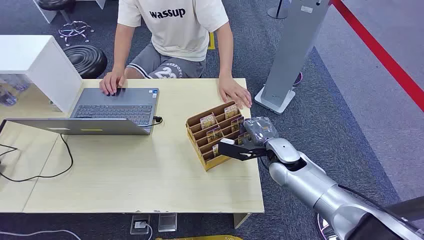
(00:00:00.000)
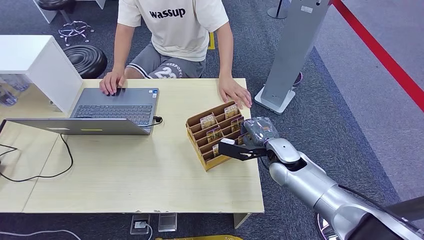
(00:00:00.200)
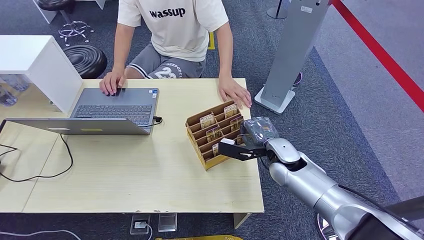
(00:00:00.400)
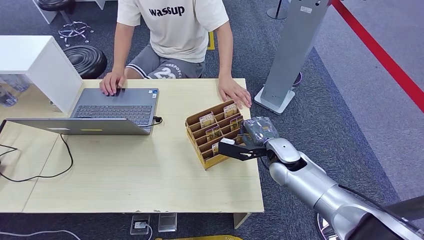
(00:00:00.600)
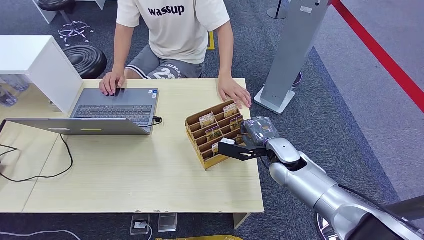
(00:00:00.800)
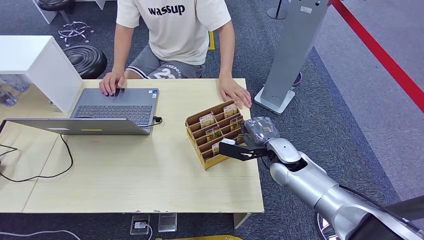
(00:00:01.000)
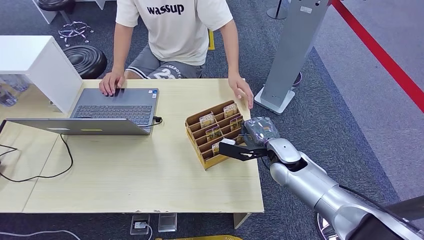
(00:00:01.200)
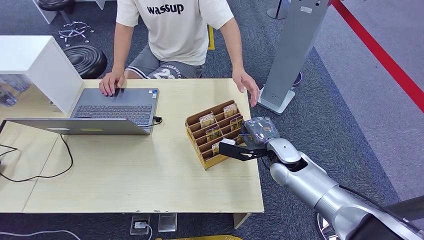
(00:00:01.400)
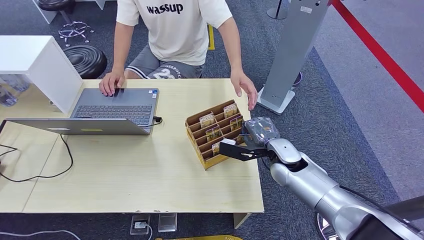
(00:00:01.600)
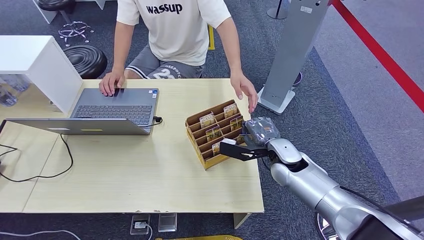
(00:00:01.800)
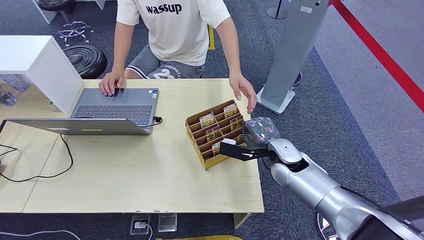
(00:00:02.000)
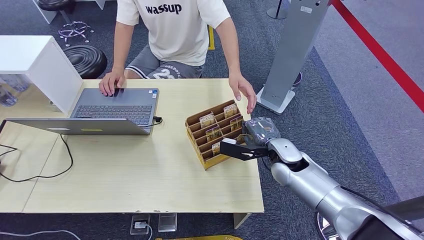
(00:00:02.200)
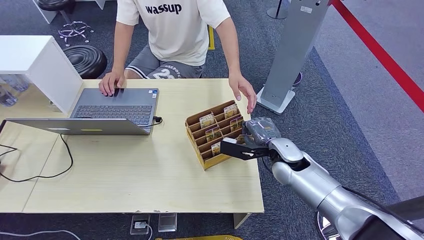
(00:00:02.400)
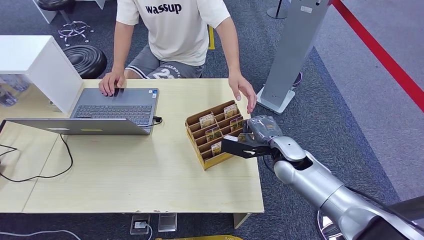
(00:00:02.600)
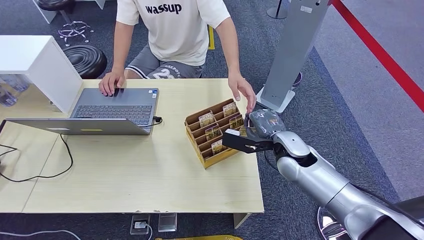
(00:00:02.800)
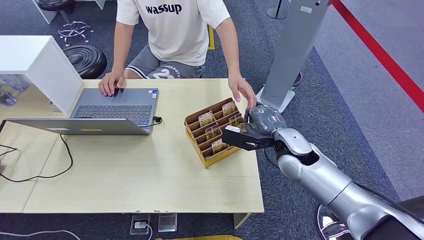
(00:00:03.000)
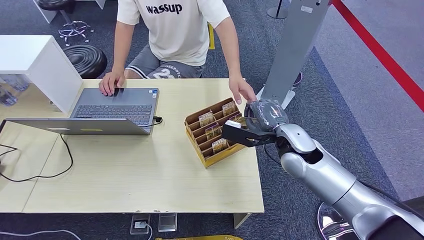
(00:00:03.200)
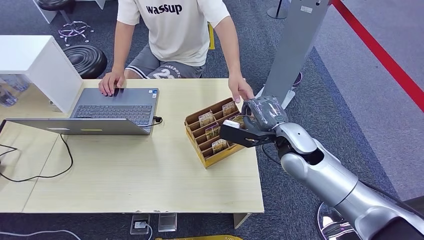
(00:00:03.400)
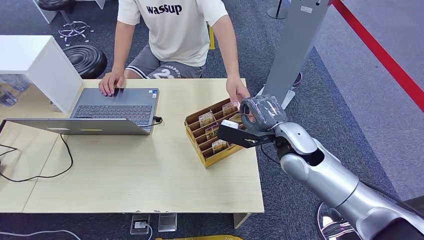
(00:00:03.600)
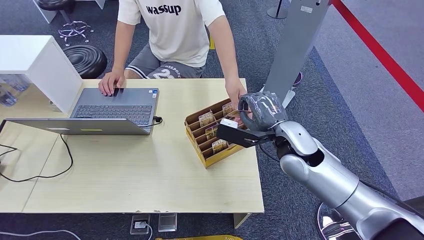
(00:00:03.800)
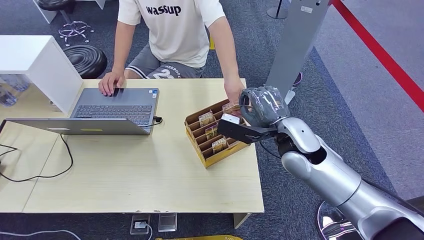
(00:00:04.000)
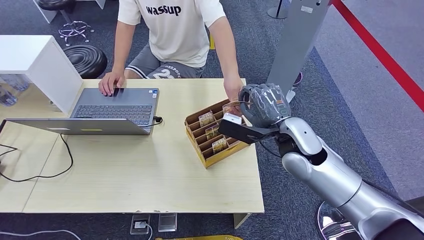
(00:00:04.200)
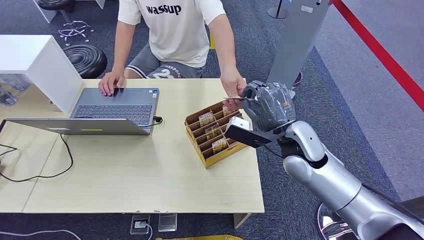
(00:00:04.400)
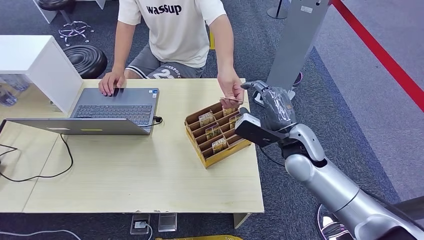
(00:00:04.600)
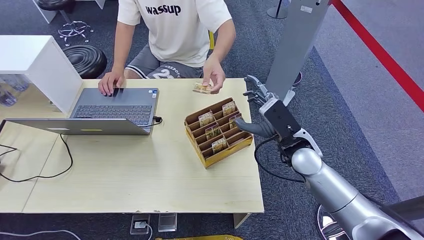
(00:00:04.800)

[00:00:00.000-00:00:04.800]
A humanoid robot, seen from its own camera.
Task of the whole recording: Pick up the card and hand it over to the target person.
Step, 00:00:00.000 to 00:00:03.000: Pick up the key card from the card box.
Step, 00:00:03.200 to 00:00:04.800: Hand the key card to the target.
00:00:01.600 to 00:00:03.200: The right hand goes approximately 10 cm upward.
00:00:03.200 to 00:00:04.800: The right hand shifts roughly 5 cm downward.
